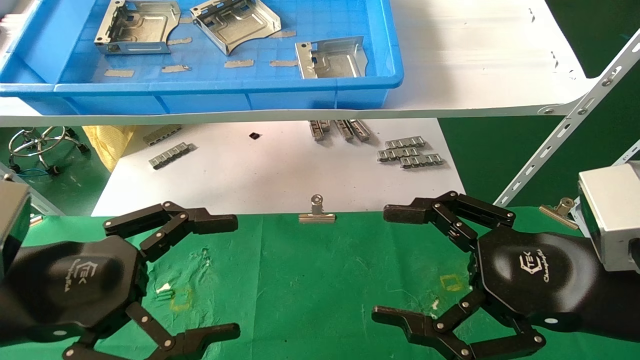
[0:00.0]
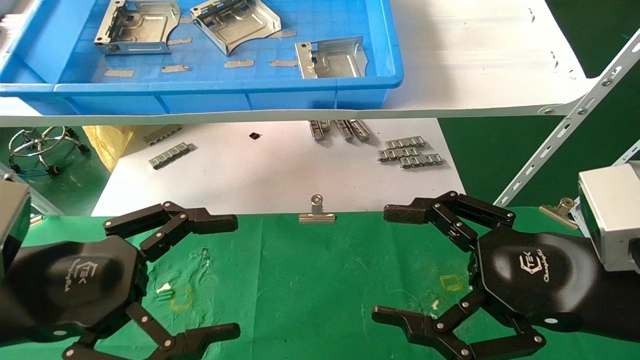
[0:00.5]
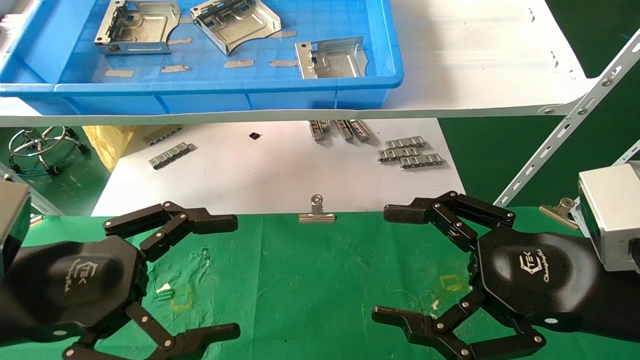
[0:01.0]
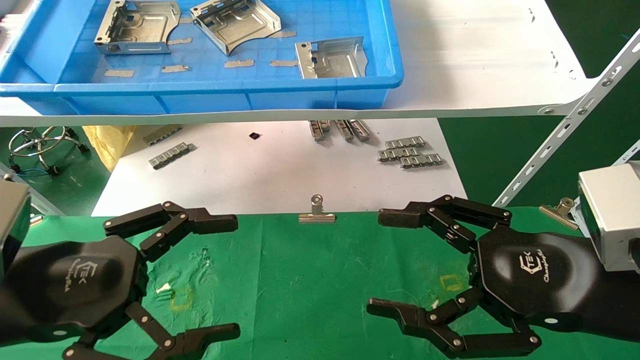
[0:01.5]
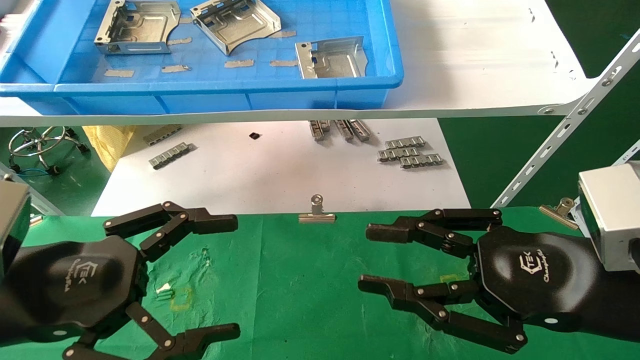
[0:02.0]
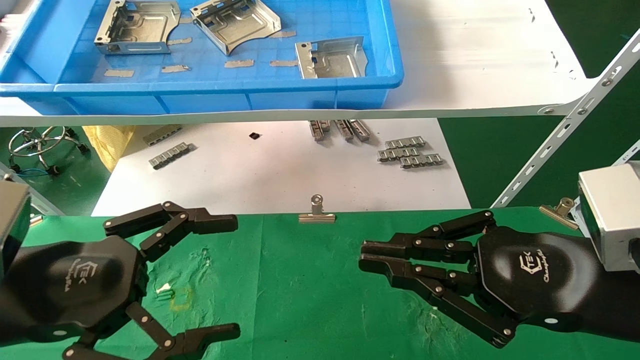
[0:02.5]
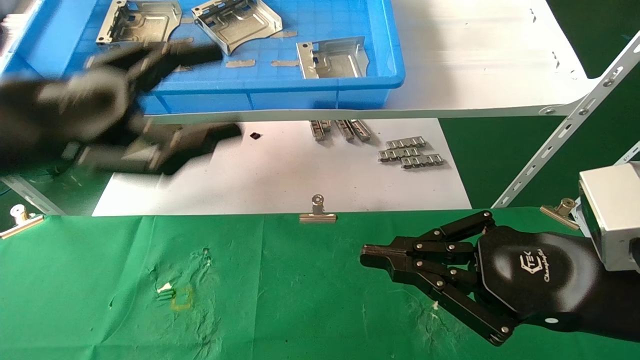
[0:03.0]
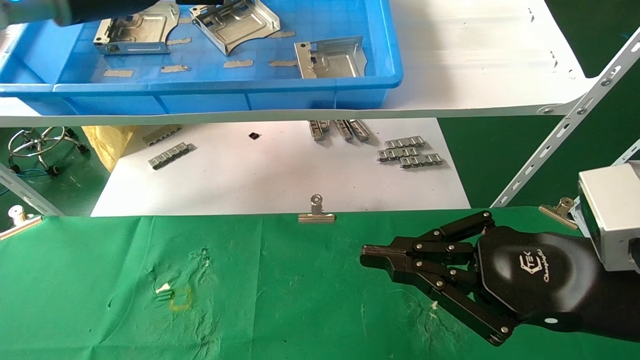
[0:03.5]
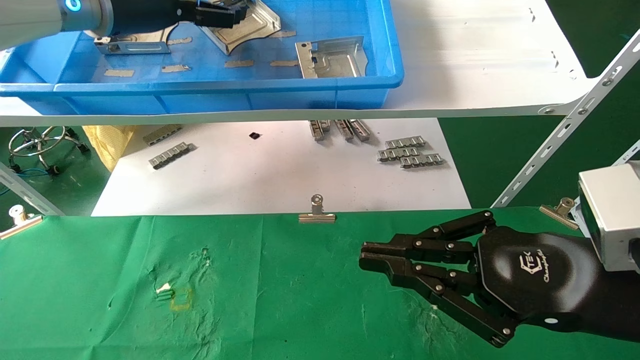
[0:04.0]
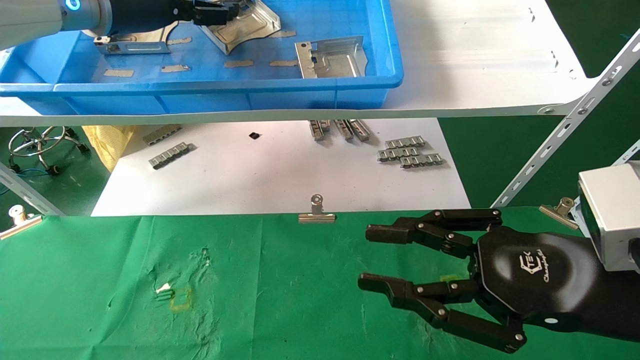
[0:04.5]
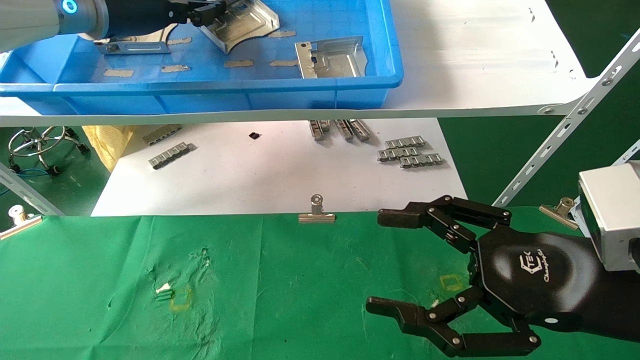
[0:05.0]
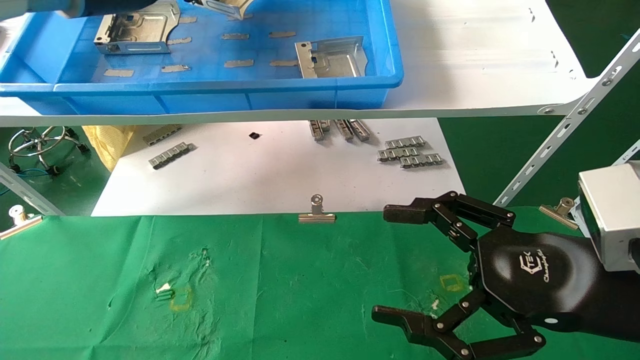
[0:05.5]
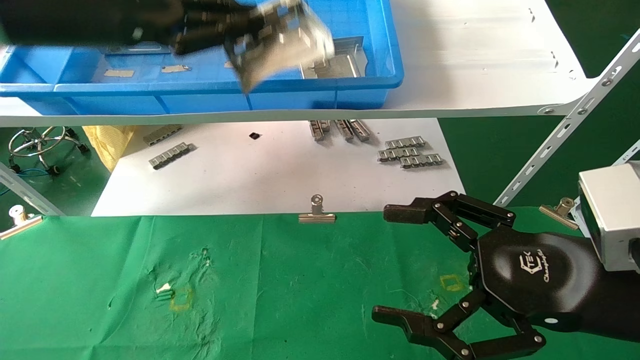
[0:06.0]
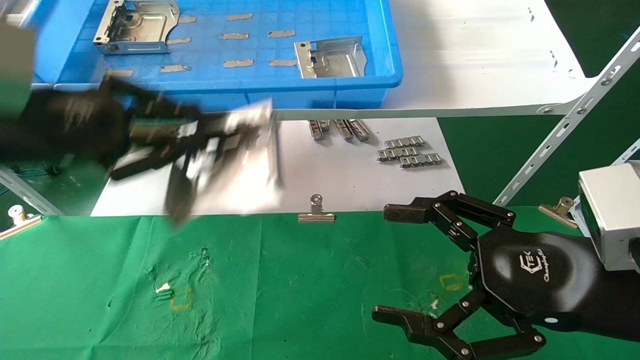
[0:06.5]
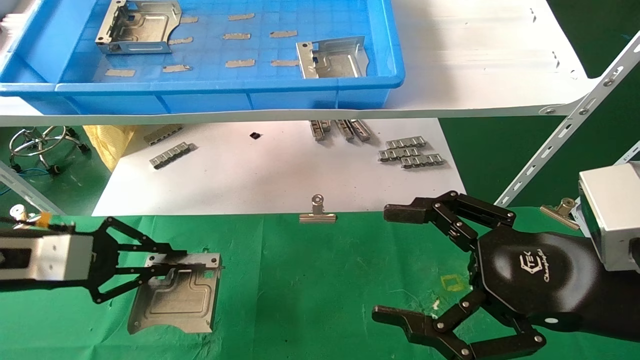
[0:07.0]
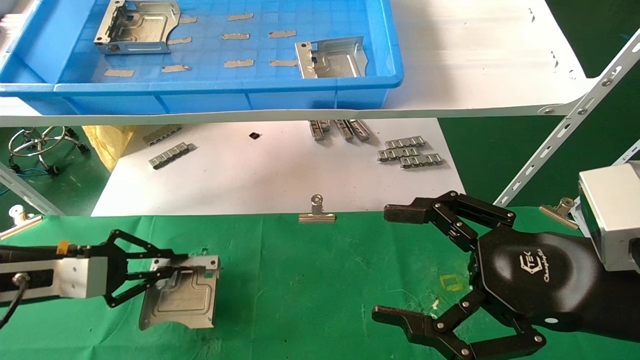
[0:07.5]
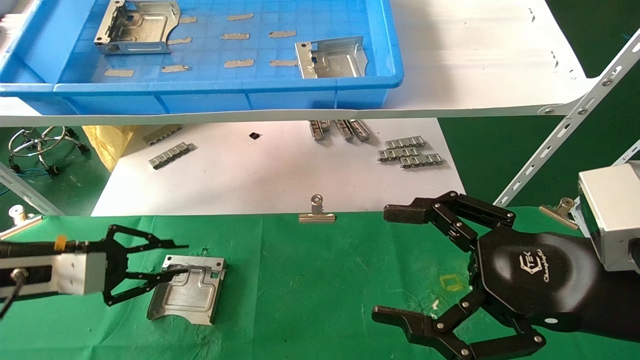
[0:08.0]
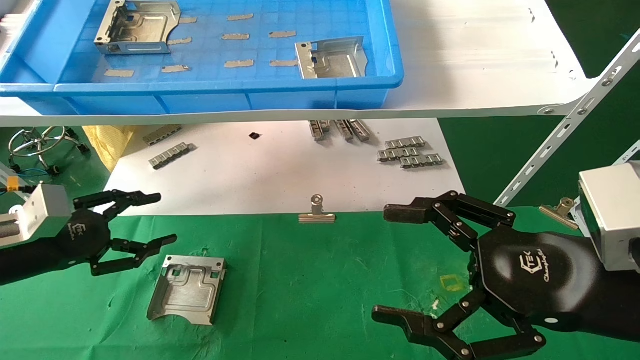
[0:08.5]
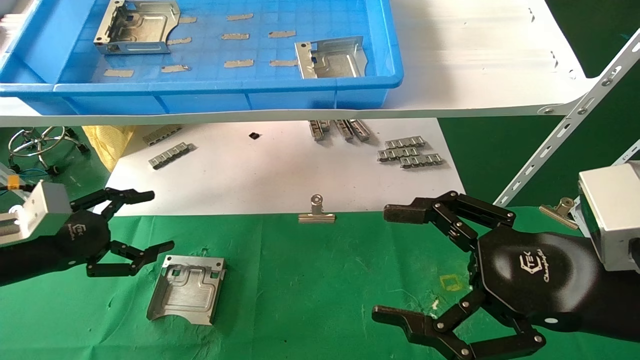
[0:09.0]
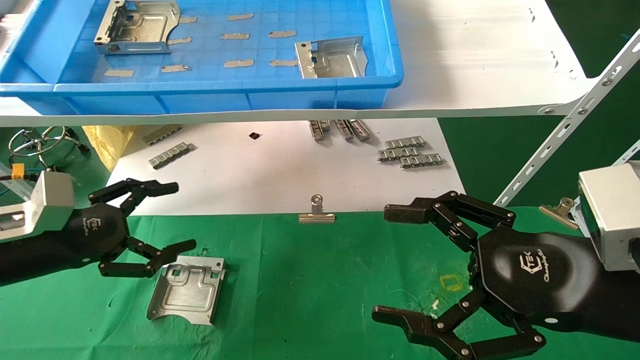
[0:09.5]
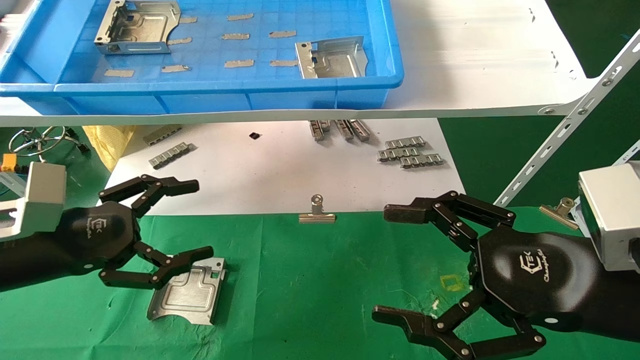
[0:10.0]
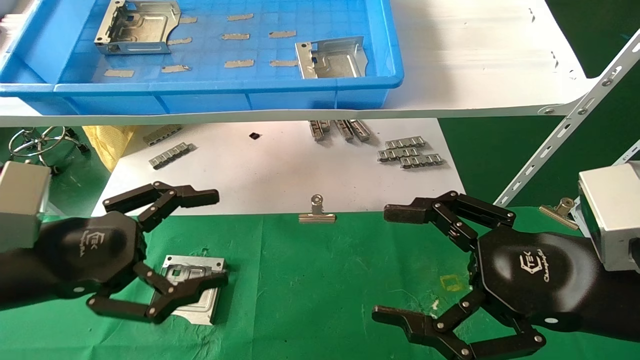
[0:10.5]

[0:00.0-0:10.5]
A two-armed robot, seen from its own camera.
Task of the whole recording: use the mechanical arm to pick up the parts and place them on the table.
Step, 0:02.0 to 0:05.0: Pick up the hard drive bracket from the feeding area.
Step, 0:05.5 to 0:08.0: Place the hard drive bracket into the box.
0:00.0 to 0:02.0: The right gripper closes its fingers.
0:02.0 to 0:04.0: The right gripper closes; the left gripper goes some 35 cm upward and forward.
0:04.0 to 0:06.5: The left gripper moves backward, downward and to the left, roughly 20 cm, and closes. Meanwhile the right gripper opens.
0:06.5 to 0:08.5: The left gripper goes about 20 cm downward and to the left, and opens.
0:08.5 to 0:10.5: The left gripper shifts roughly 15 cm to the right and backward, and opens up.

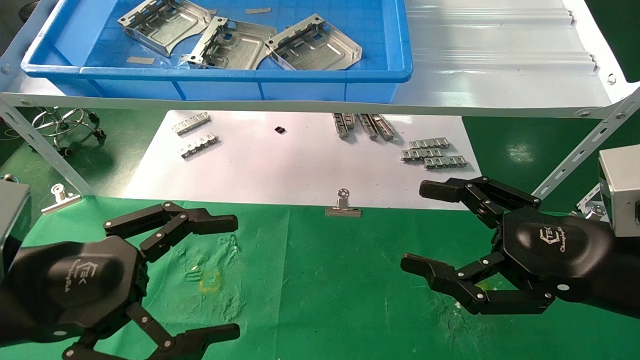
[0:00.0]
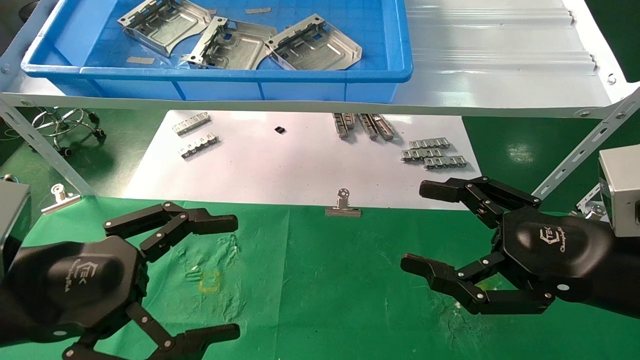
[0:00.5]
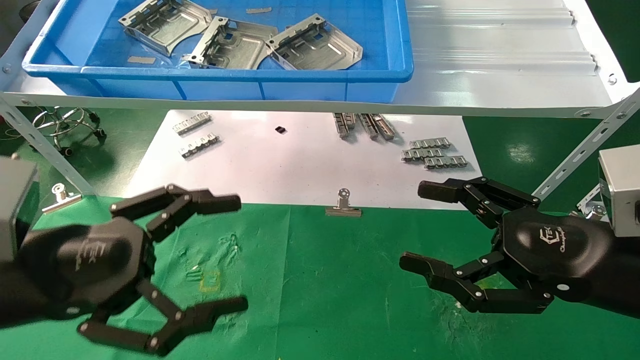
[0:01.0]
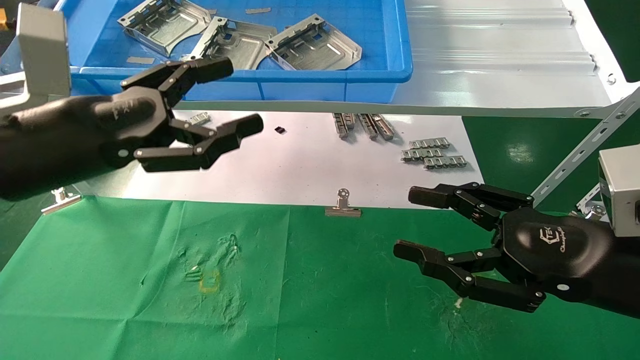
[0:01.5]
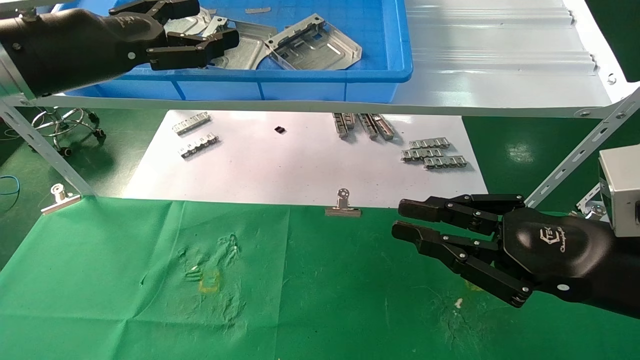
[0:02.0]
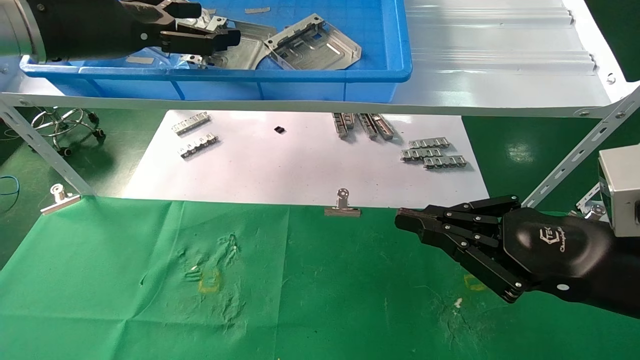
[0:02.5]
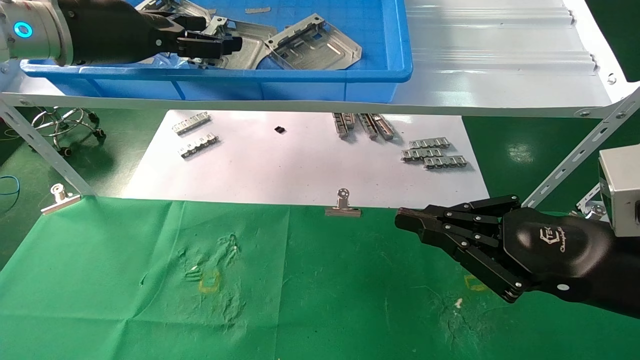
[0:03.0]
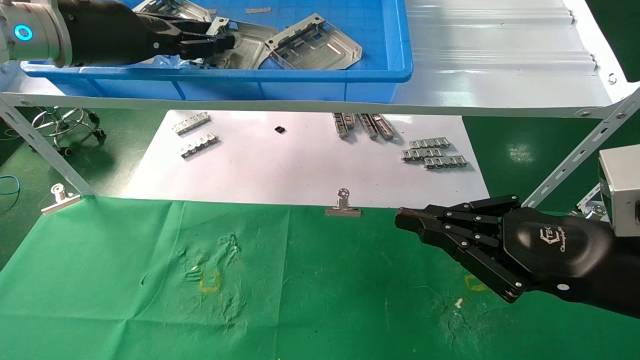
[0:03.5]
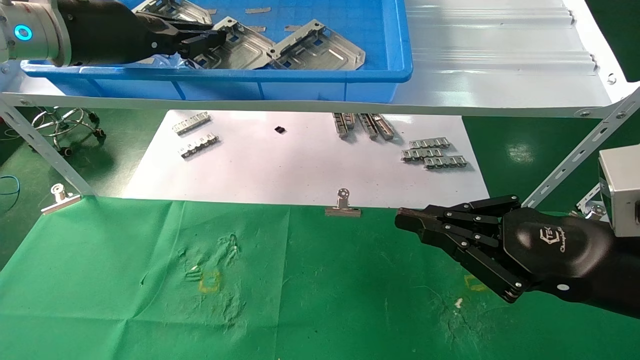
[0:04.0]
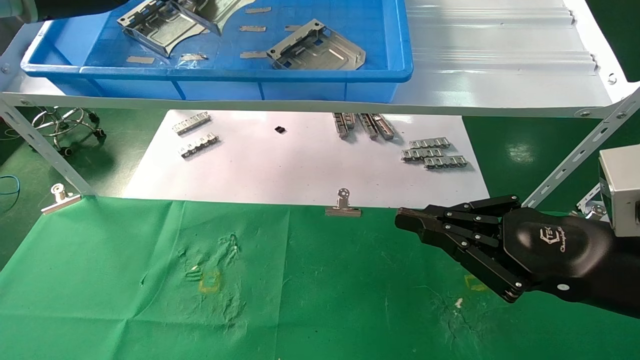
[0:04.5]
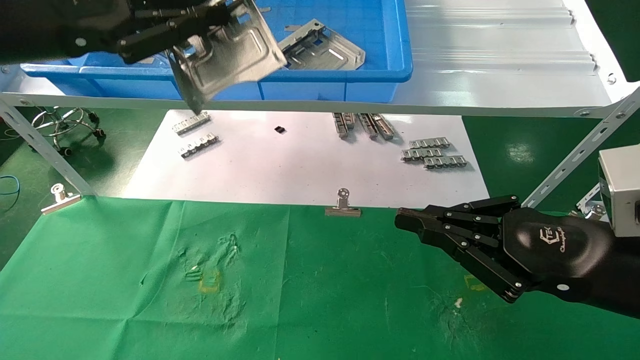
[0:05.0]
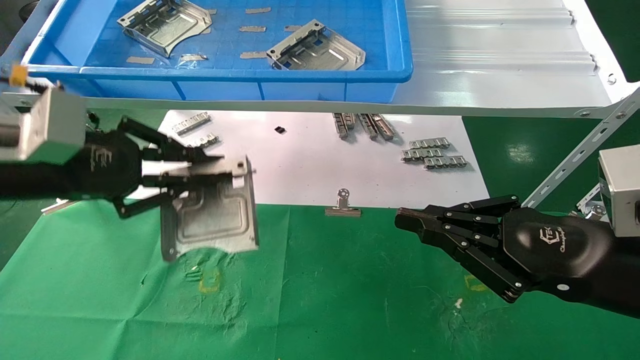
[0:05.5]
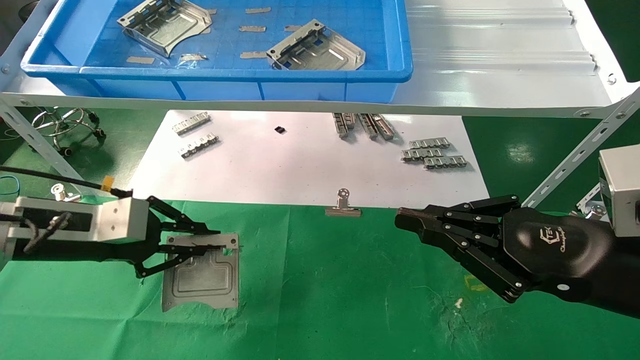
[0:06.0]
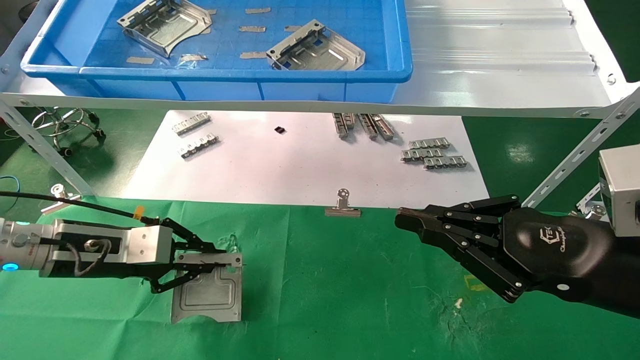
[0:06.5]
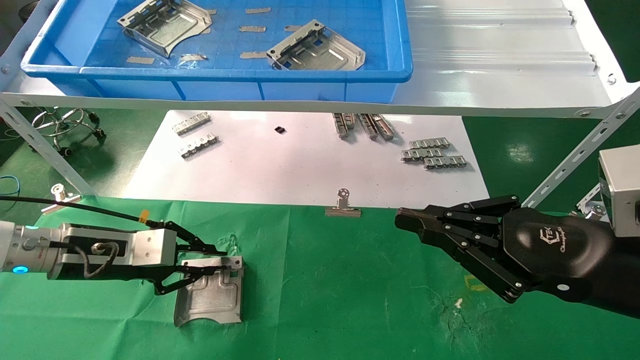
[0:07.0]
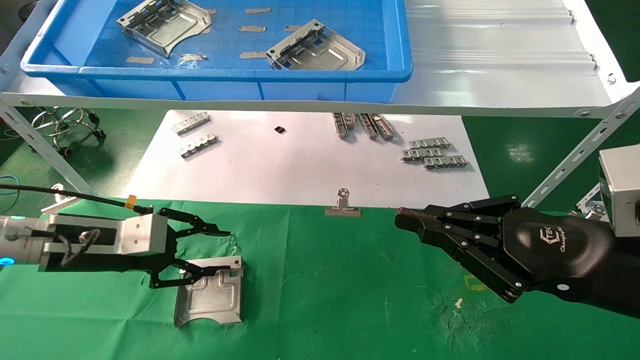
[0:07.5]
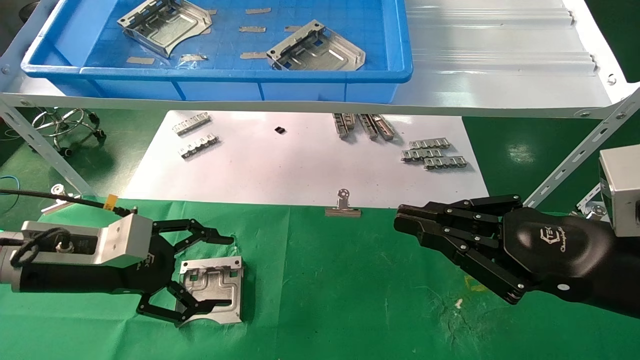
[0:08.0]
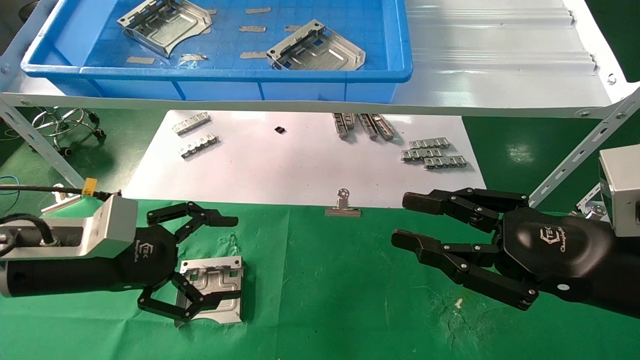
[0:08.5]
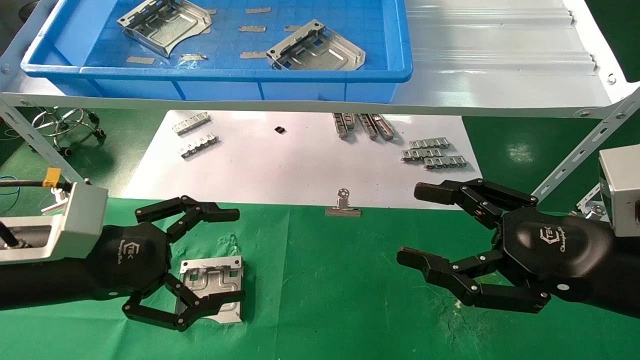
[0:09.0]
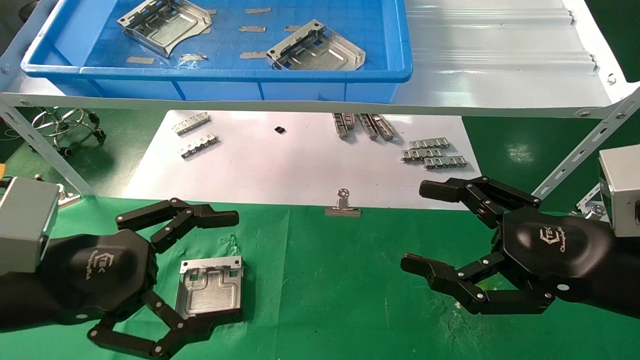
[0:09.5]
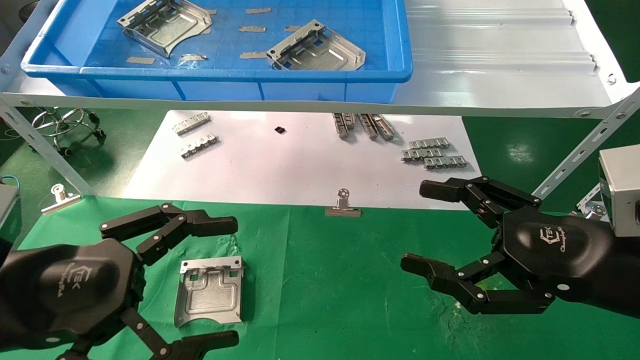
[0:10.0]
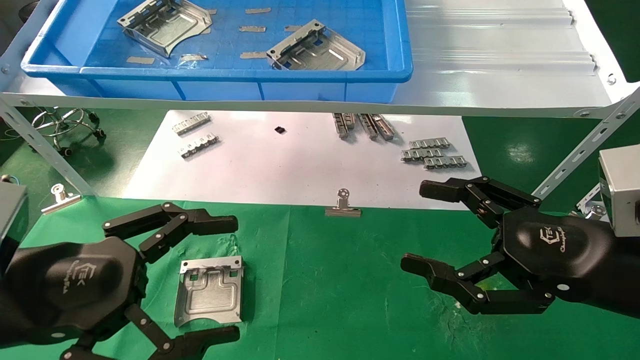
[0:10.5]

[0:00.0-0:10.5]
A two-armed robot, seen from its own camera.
Task of the whole recording: use the mechanical arm to pick up the parts and place them on the table.
Step, 0:01.5 to 0:03.5: Pick up the hard drive bracket from the feeding area.
Step, 0:04.0 to 0:07.0: Place the hard drive bracket into the box.
0:00.0 to 0:02.0: The right gripper closes its fingers, while the left gripper is displaced upward and forward by some 25 cm.
0:02.0 to 0:04.0: The left gripper goes about 5 cm forward, and closes up.
0:04.0 to 0:06.5: The left gripper shifts about 25 cm downward.
0:06.5 to 0:08.5: The left gripper moves backward, about 5 cm, and opens its fingers.
0:08.5 to 0:10.5: The right gripper opens up. The left gripper travels backward by approximately 10 cm.
